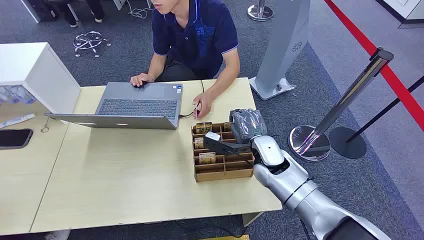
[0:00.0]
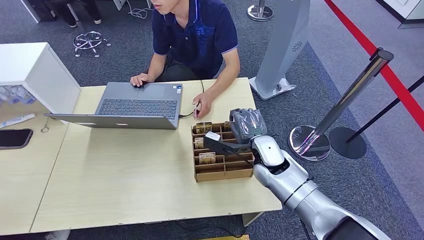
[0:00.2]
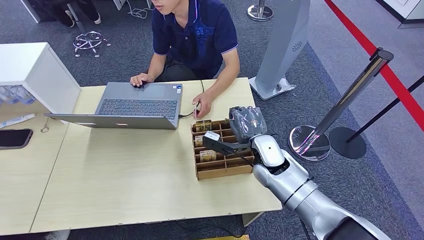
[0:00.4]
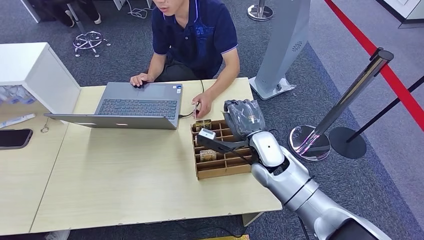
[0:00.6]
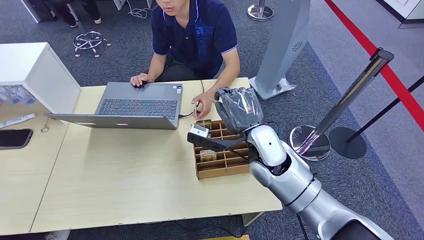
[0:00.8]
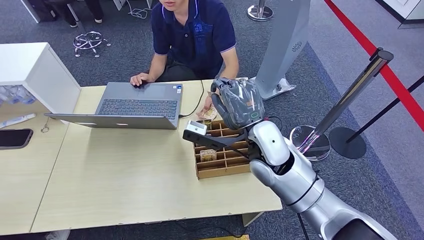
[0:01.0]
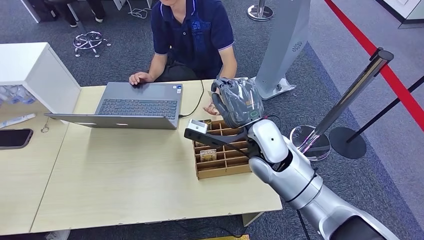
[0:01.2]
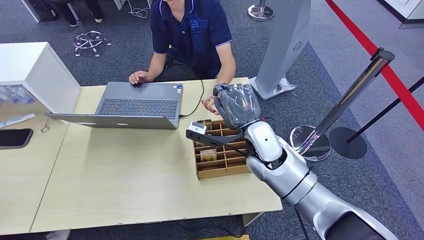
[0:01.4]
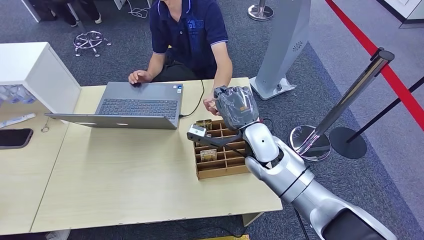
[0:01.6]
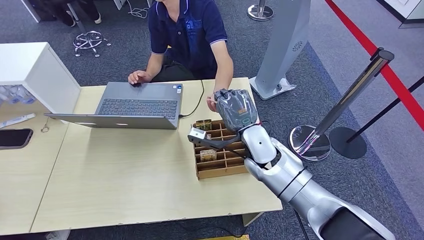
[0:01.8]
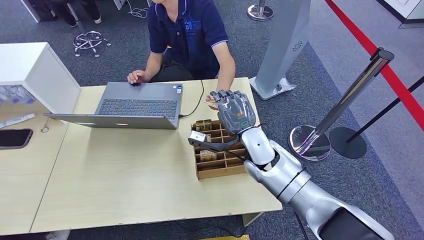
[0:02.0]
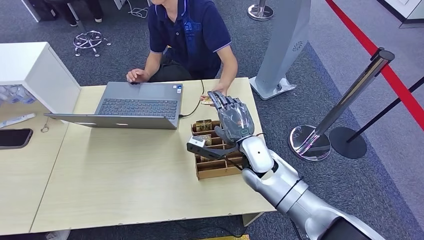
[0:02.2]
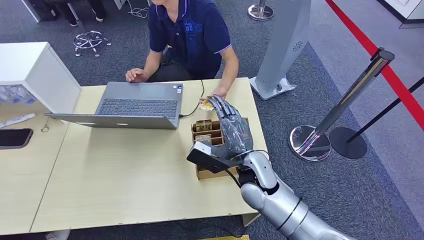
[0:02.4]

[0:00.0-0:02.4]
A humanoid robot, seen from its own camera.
Step, 0:00.0 to 0:00.8: Pick up the key card from the card box.
Step, 0:01.8 to 0:02.2: Hand the key card to the target.
0:01.2 to 0:02.4: The right hand shifts some 10 cm downward.
